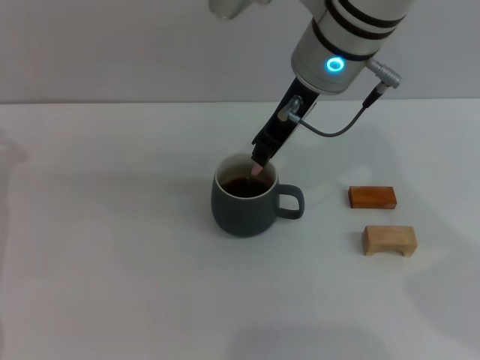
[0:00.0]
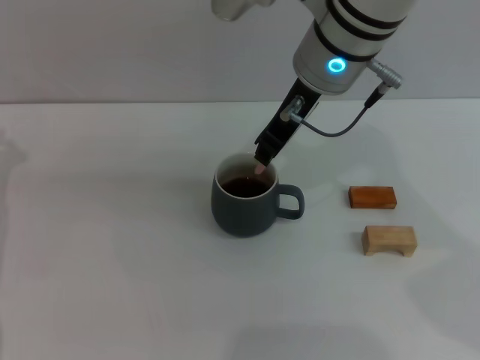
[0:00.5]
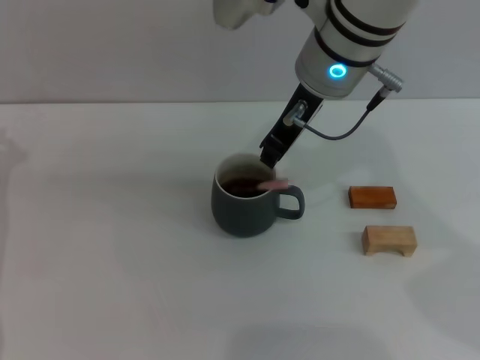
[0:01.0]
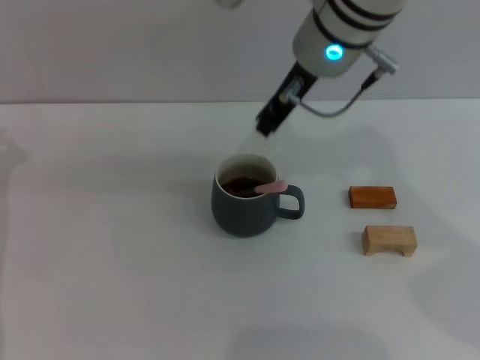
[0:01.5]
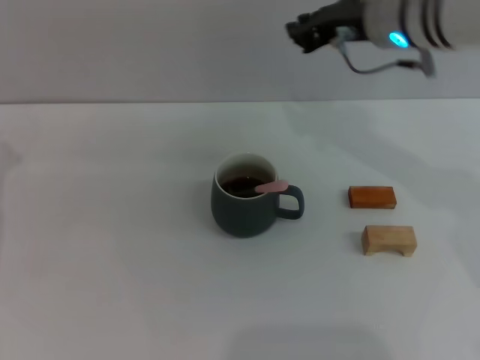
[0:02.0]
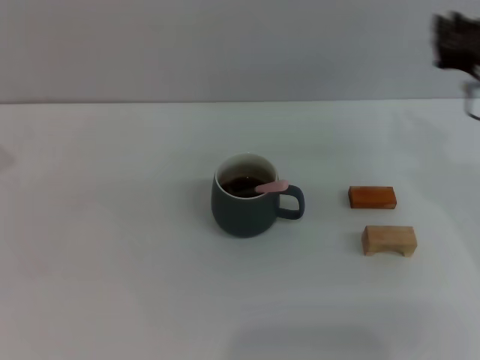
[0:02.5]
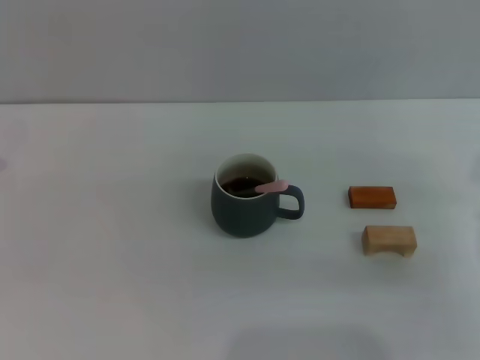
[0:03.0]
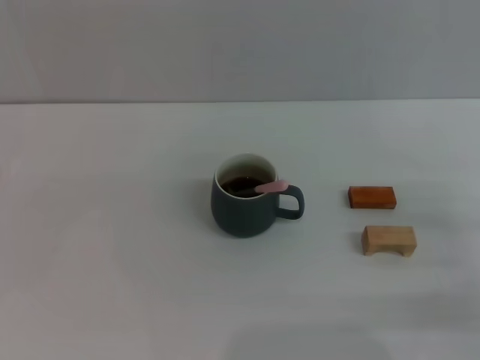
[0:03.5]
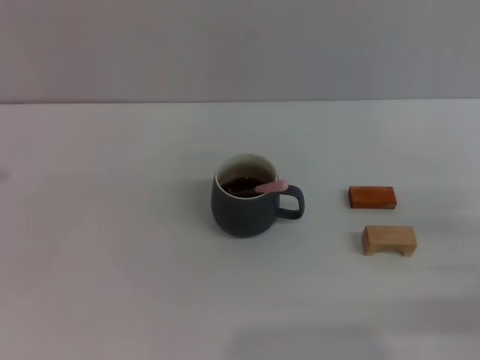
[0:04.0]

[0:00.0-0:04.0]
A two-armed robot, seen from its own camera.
Task of the whole recording: Move the grey cup to the center, lift the pink spoon, stir it three times in the cup, and put the spoon into the cup.
0:00.0 to 0:02.0: The right gripper moves to the right, some 10 cm.
0:02.0 to 0:04.0: The right gripper is displaced backward, to the right and downward by some 30 cm.

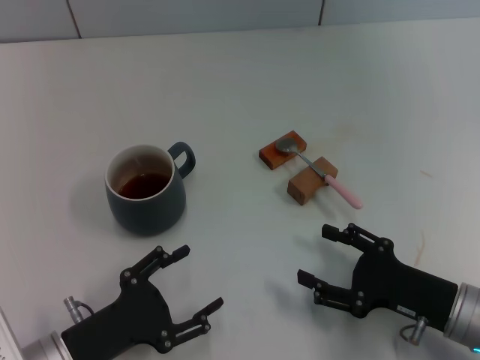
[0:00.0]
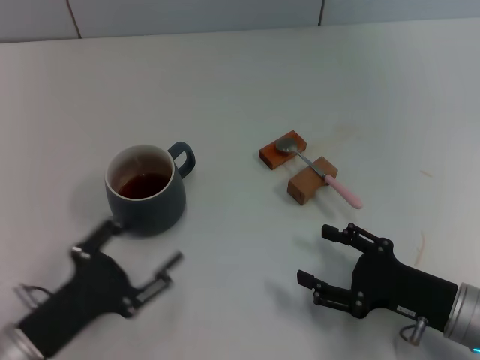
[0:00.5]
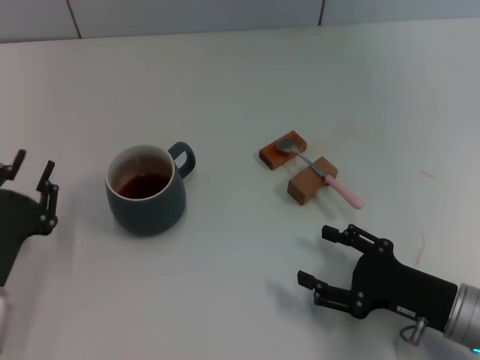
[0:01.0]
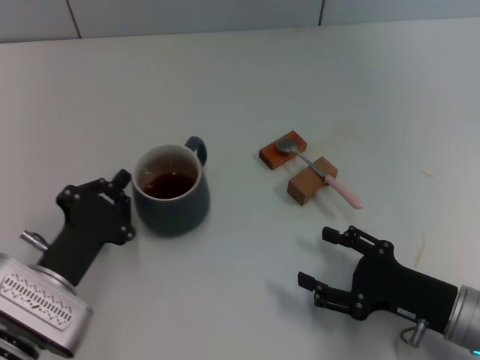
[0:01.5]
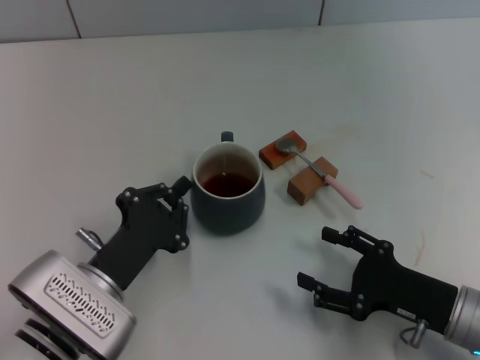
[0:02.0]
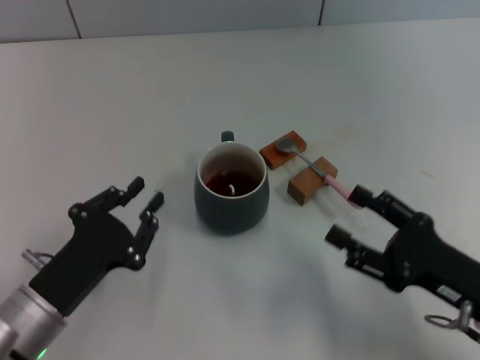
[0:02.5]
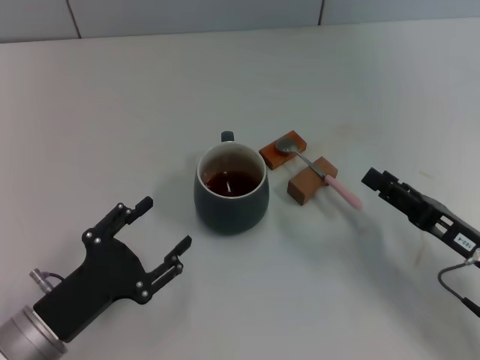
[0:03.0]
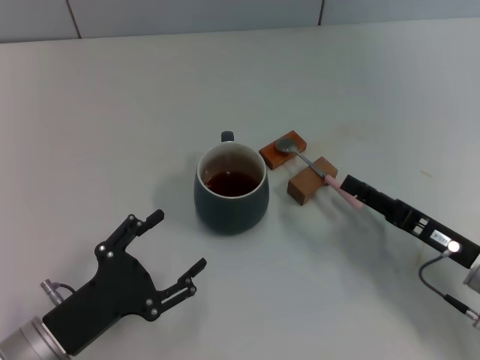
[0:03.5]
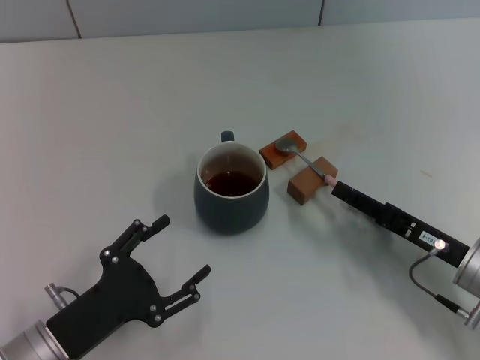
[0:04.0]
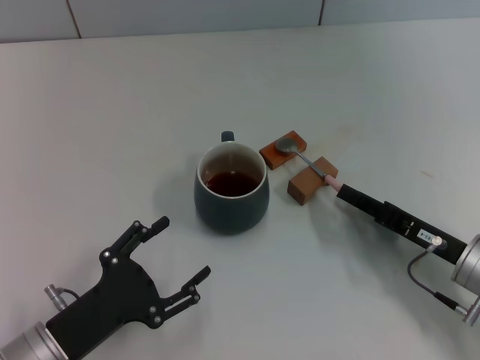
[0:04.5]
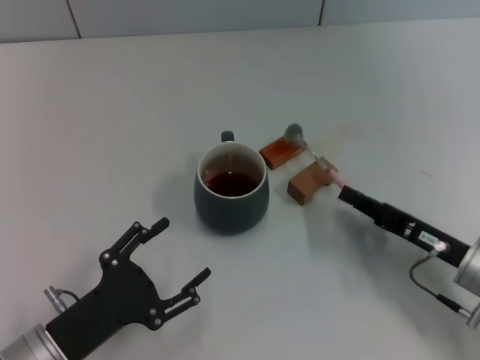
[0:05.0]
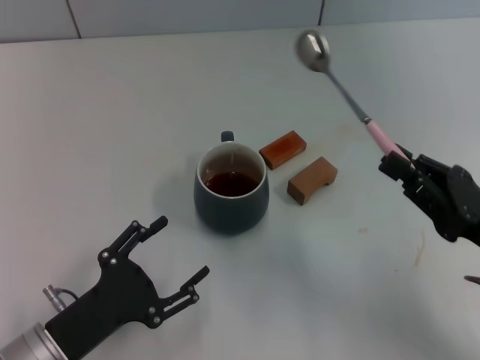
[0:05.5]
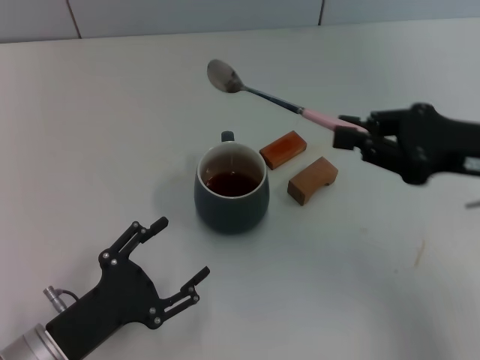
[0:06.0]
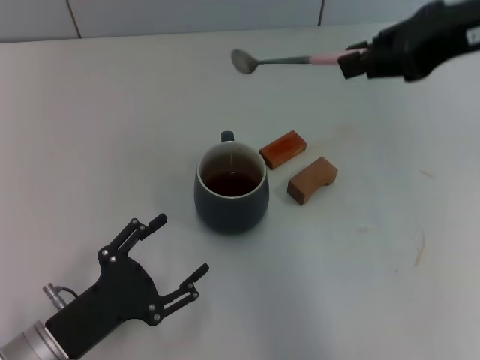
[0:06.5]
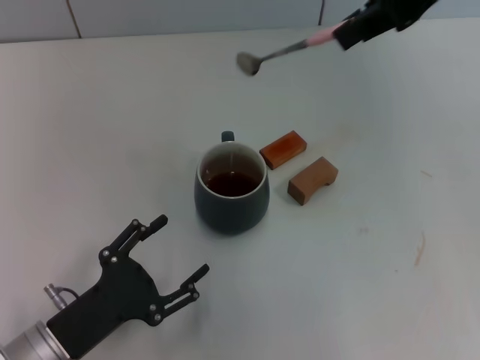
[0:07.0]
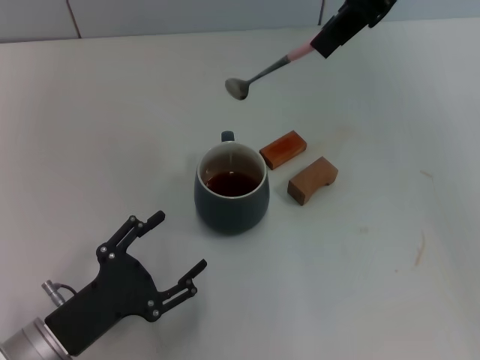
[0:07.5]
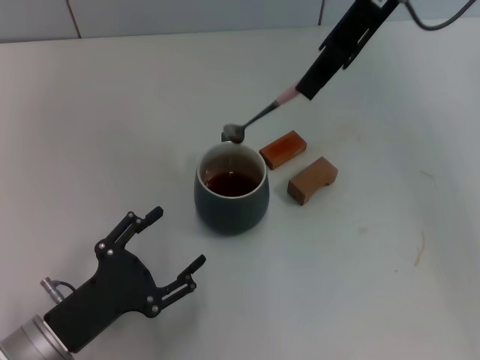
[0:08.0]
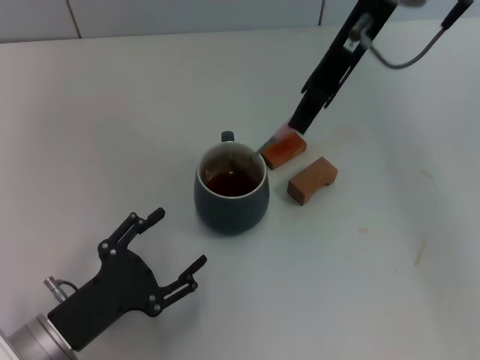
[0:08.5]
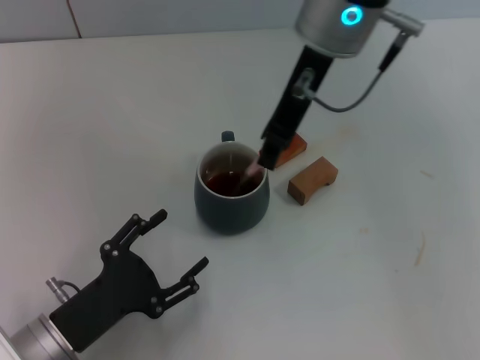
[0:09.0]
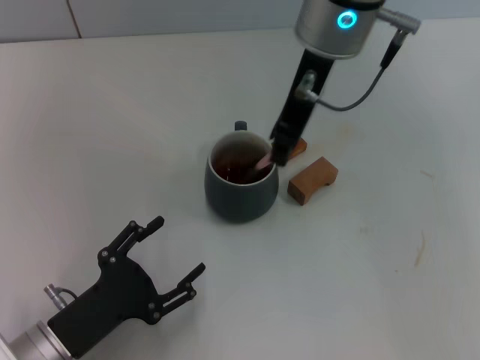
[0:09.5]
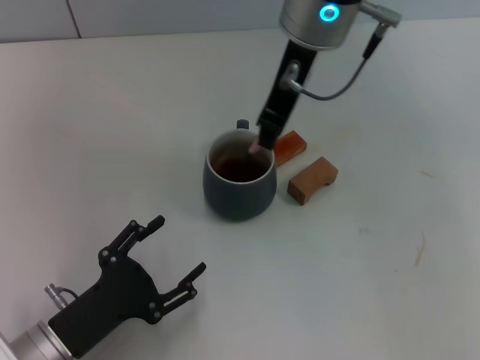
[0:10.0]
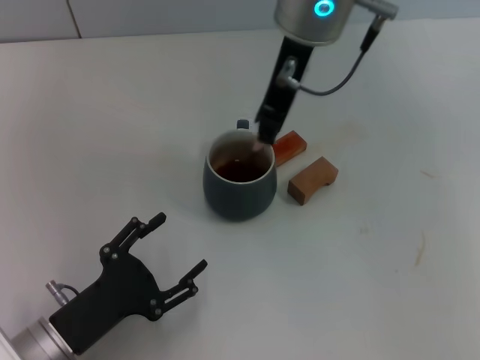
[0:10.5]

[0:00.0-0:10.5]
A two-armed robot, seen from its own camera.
Task of the whole recording: Move the grey cup to the center, lift the pink spoon, stir it three times in the cup, and put the spoon into the cup.
Step, 0:00.0 to 0:02.0: Move the cup with coffee to the center of view with the left gripper.
Step, 0:02.5 to 0:05.0: Pick up the spoon with the right gripper.
0:00.0 to 0:02.0: The left gripper moves roughly 5 cm, and closes its fingers.
0:02.0 to 0:04.0: The left gripper moves approximately 5 cm, and opens up.
0:04.0 to 0:06.5: The right gripper travels upward by approximately 30 cm, and closes.
0:06.5 to 0:08.5: The right gripper shifts approximately 15 cm to the left and forward.
0:08.5 to 0:10.5: The right gripper travels to the left by some 5 cm.

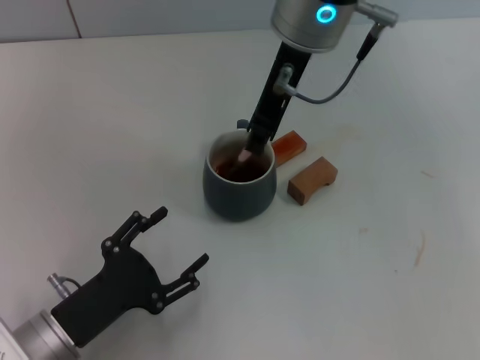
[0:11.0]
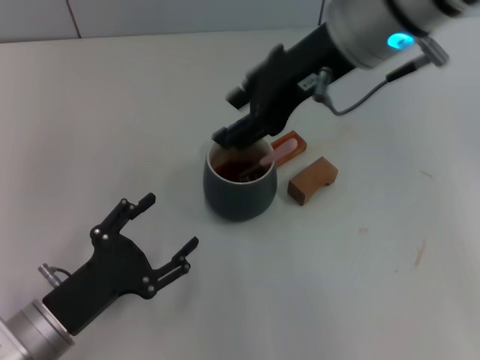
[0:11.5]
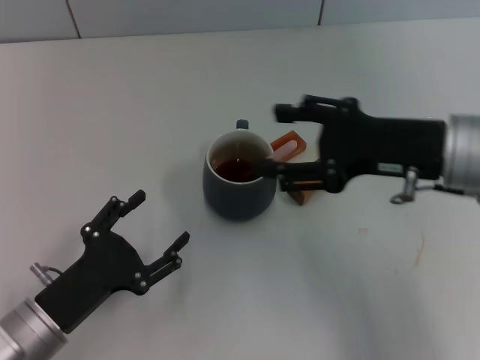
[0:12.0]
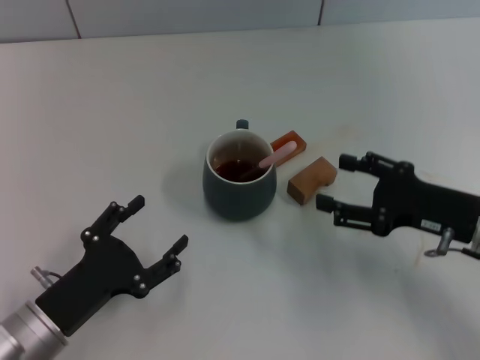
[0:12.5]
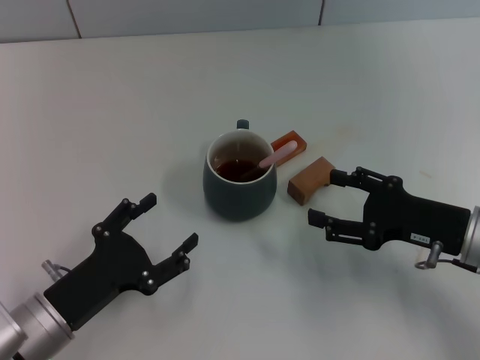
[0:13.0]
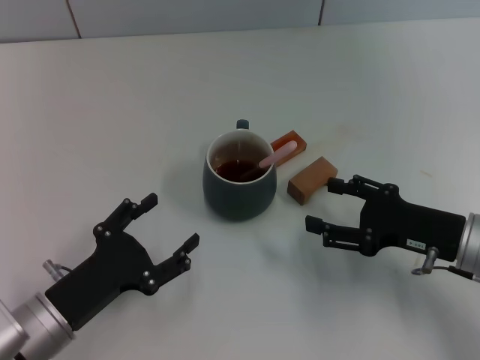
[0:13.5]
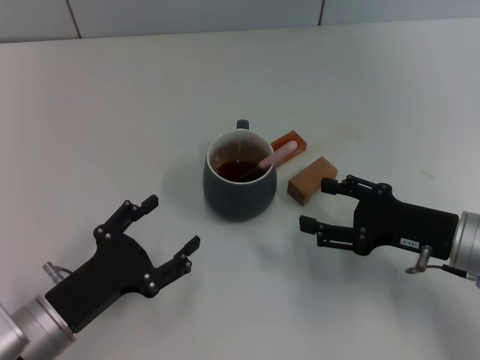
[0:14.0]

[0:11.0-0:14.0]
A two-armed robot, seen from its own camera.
Task of the whole recording: Move the grey cup to the center, lift the pink spoon, stir it three times in the cup, and put the spoon into the cup.
0:11.0 to 0:12.5: The right gripper goes roughly 30 cm to the right, downward and backward, and opens its fingers.
0:12.5 to 0:14.0: The grippers move only a little.
